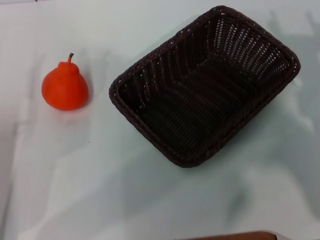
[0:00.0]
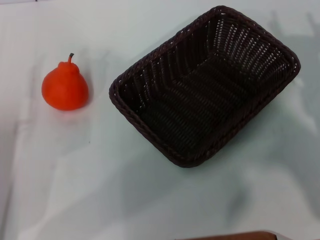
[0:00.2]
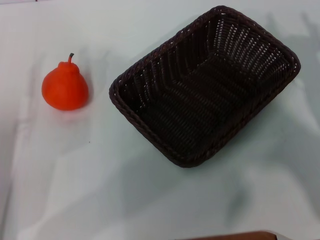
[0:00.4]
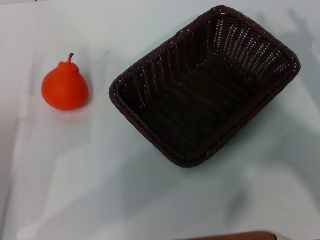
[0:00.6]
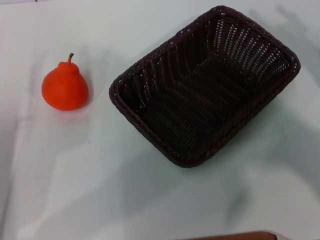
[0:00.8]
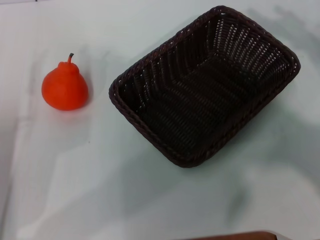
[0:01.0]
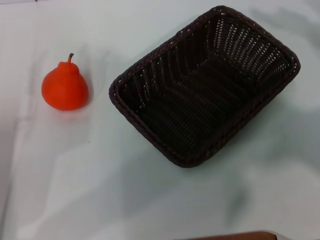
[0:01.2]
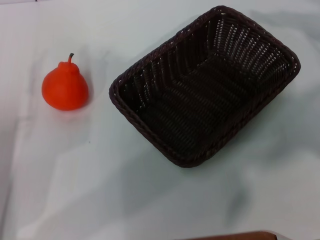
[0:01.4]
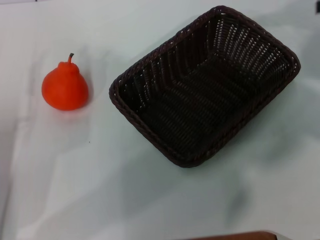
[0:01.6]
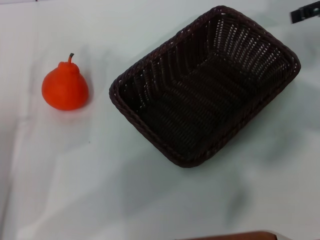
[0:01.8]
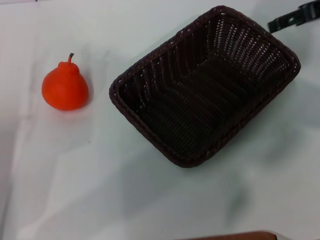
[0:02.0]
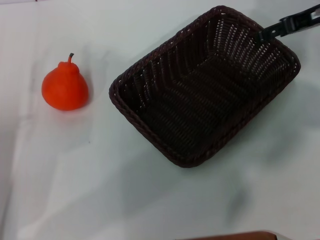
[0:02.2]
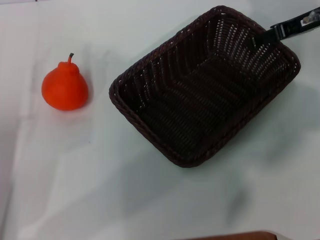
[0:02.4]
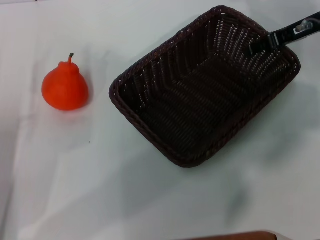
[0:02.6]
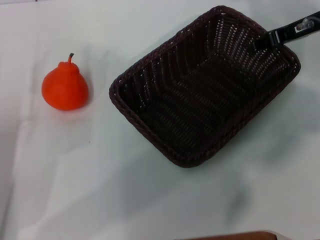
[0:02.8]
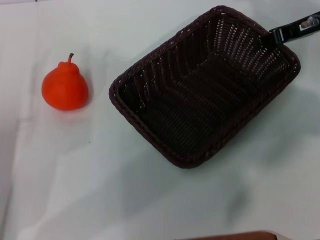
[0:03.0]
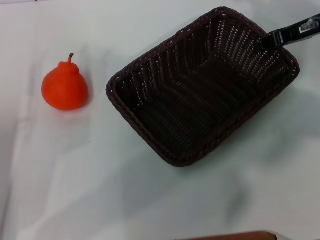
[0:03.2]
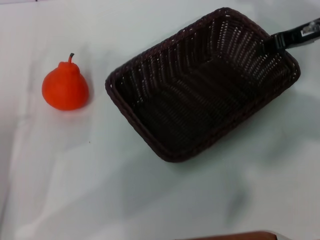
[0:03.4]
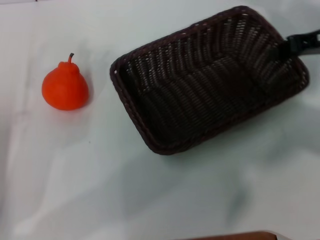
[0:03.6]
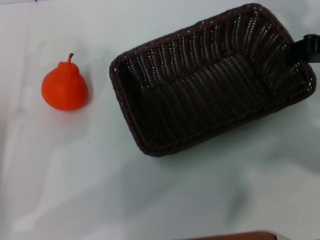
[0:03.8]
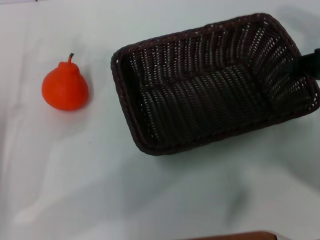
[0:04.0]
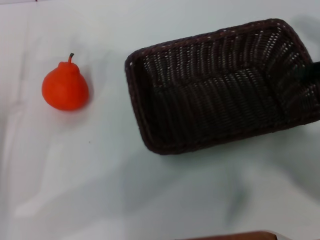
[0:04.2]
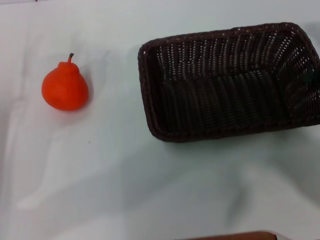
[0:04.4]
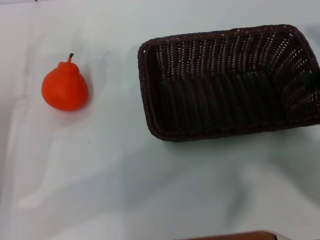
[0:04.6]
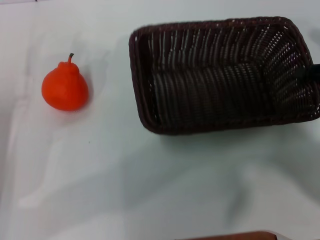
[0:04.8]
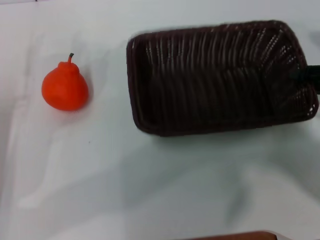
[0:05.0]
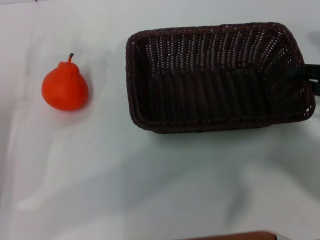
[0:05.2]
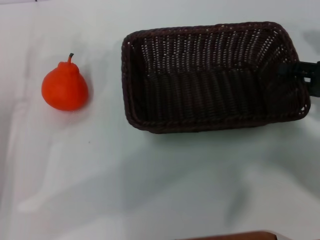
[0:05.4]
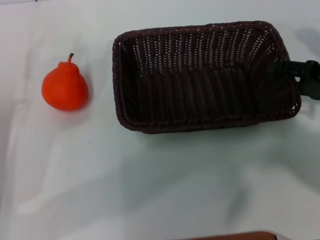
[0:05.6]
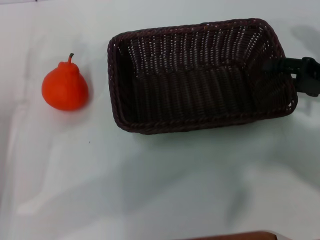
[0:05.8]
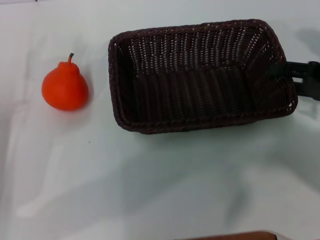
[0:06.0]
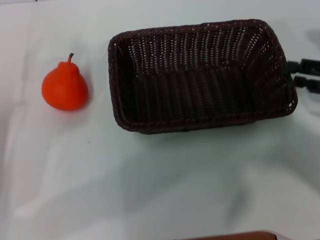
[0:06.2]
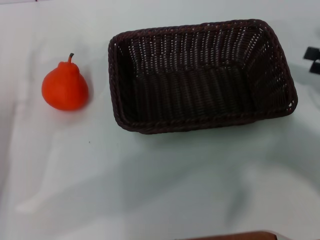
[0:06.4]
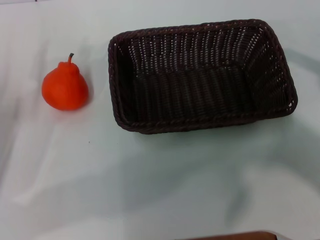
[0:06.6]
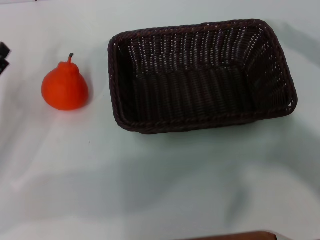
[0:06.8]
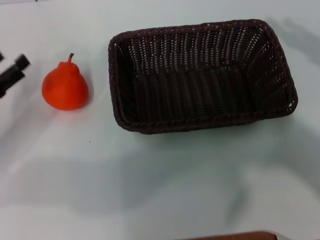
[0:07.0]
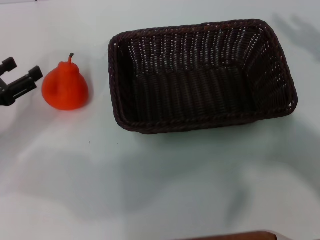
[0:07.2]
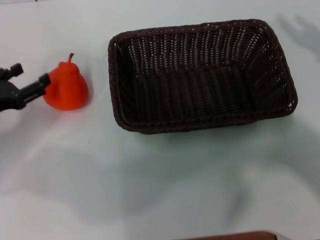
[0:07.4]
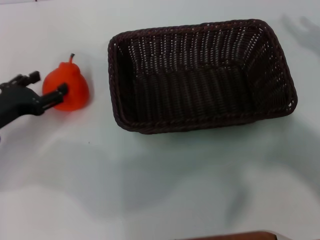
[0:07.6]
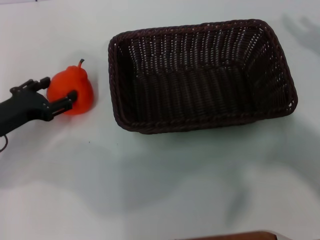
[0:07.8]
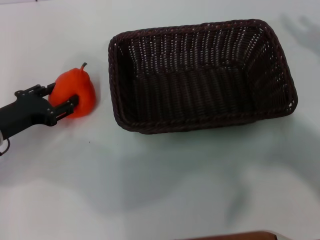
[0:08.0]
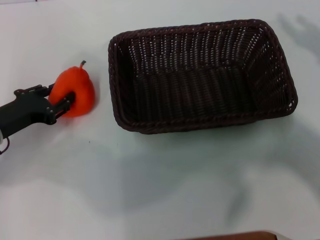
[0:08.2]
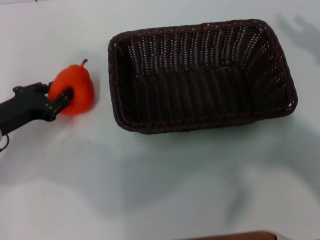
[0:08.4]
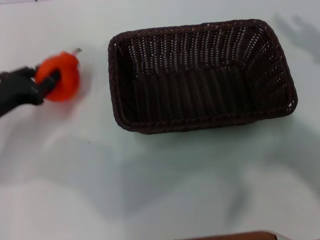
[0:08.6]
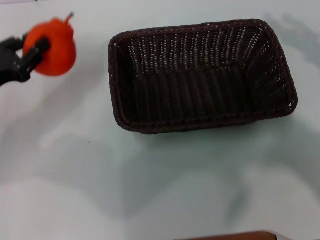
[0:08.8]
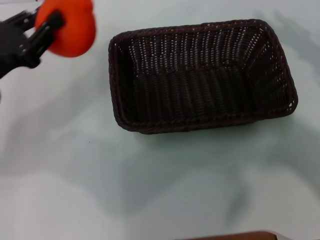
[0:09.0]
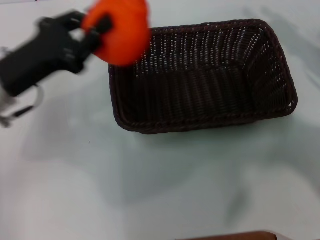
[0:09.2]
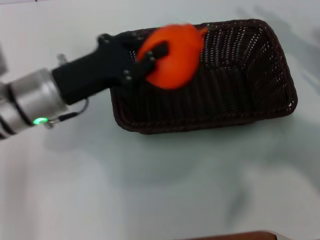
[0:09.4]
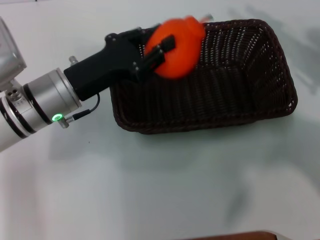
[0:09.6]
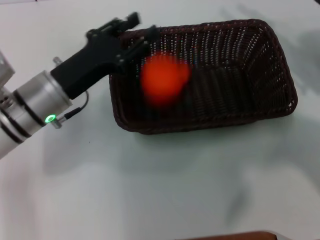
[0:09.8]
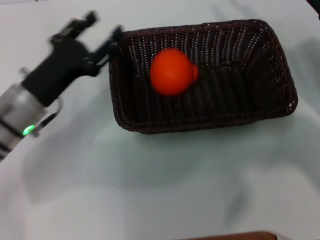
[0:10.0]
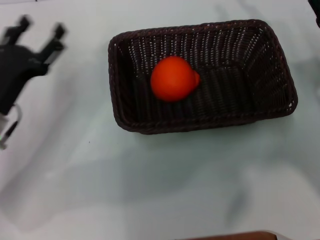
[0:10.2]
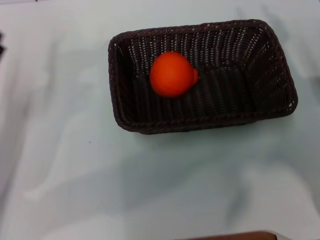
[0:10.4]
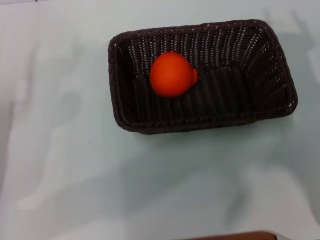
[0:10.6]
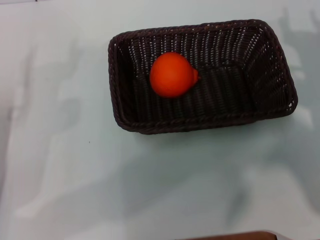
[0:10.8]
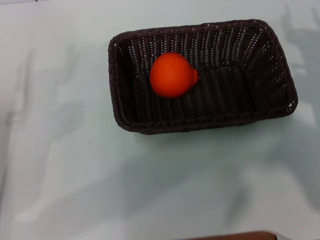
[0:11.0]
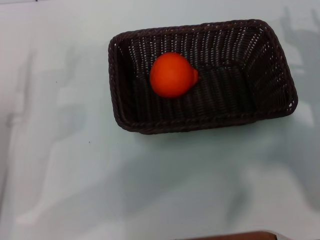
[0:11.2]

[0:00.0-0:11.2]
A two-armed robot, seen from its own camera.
Task of the whole recording: the right gripper pick up the black basket and place it horizontally in the middle of the table, the left gripper pick up the orange and place it into the black basket.
Step, 0:00.0 to 0:03.4: Pick up the dark basket with the right gripper.
Step, 0:03.6 to 0:05.8: Place the dark basket in the center of view with the right gripper.
Step, 0:06.0 to 0:08.4: Pick up the orange with the left gripper.
Step, 0:08.6 to 0:09.6: Place the orange into the dark basket with the left gripper.
0:00.0 to 0:01.6: The right gripper is displaced upward and forward by about 20 cm.
0:01.6 to 0:03.2: The right gripper goes roughly 10 cm to the left and downward, and closes up.
0:03.2 to 0:04.8: The right gripper moves backward, to the right and downward, some 15 cm.
0:04.8 to 0:06.4: The right gripper opens.
0:06.4 to 0:08.0: The left gripper travels forward by some 5 cm.
0:08.0 to 0:09.6: The left gripper shifts some 10 cm to the right, and closes up. The right gripper moves to the left and forward, roughly 10 cm.
0:09.6 to 0:11.2: The right gripper heads downward, covering about 5 cm; the left gripper moves to the left, backward and downward, about 15 cm, and opens up.
